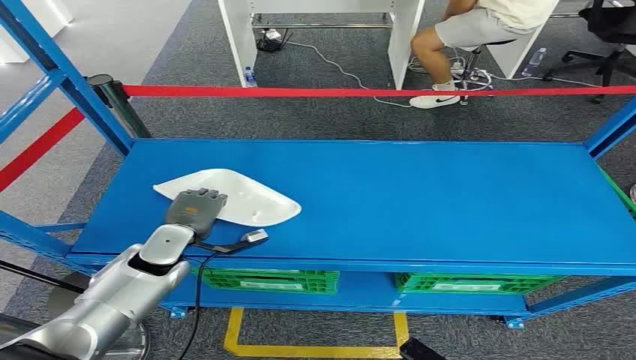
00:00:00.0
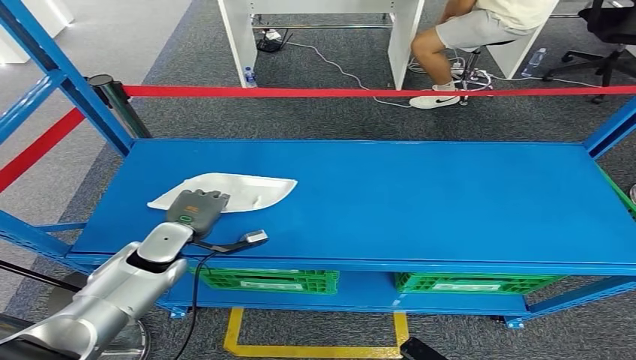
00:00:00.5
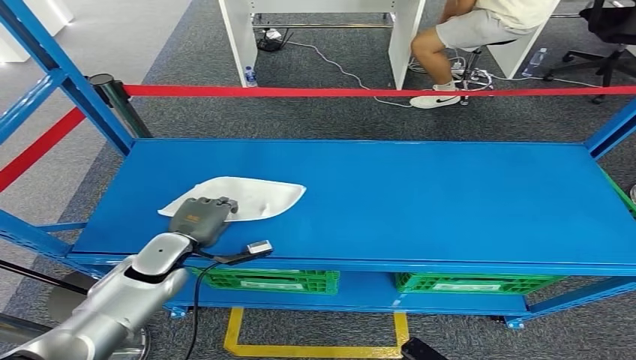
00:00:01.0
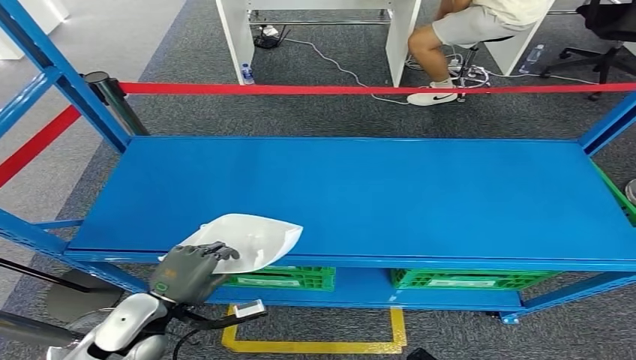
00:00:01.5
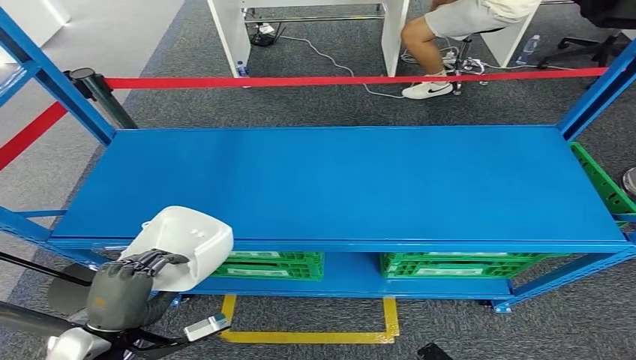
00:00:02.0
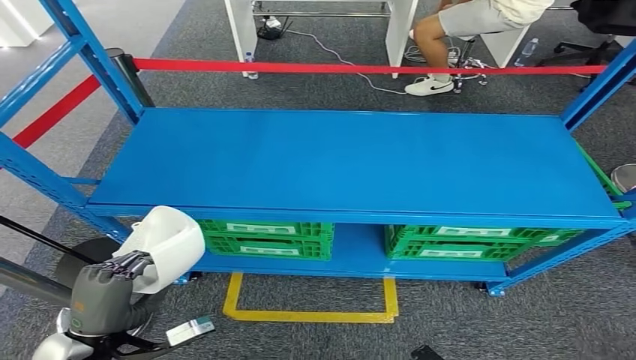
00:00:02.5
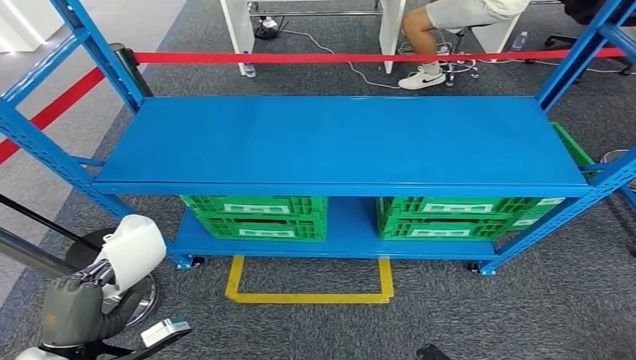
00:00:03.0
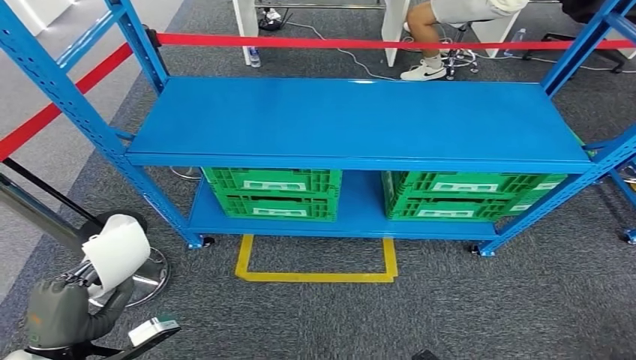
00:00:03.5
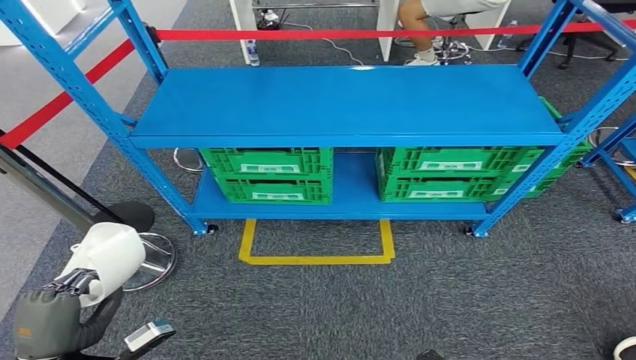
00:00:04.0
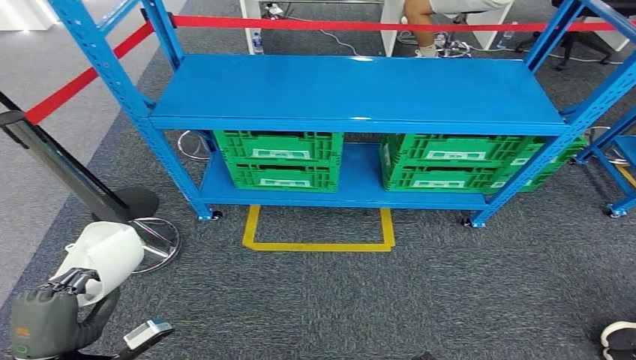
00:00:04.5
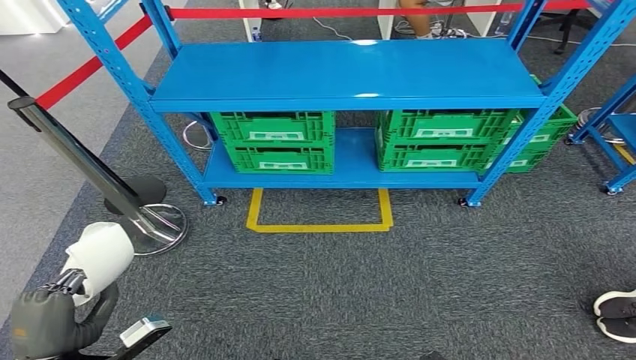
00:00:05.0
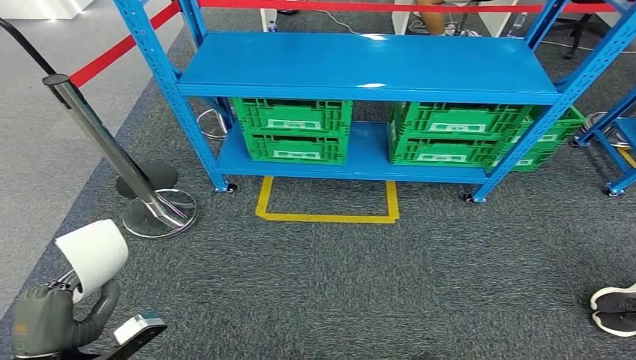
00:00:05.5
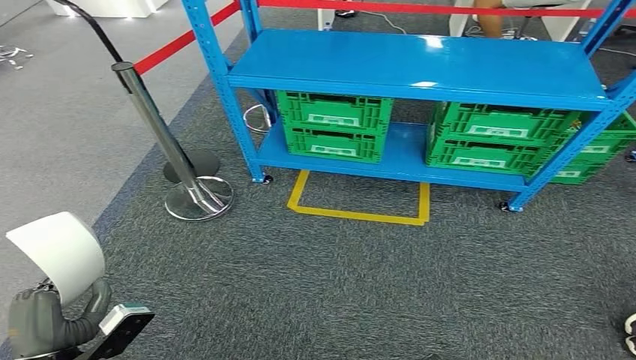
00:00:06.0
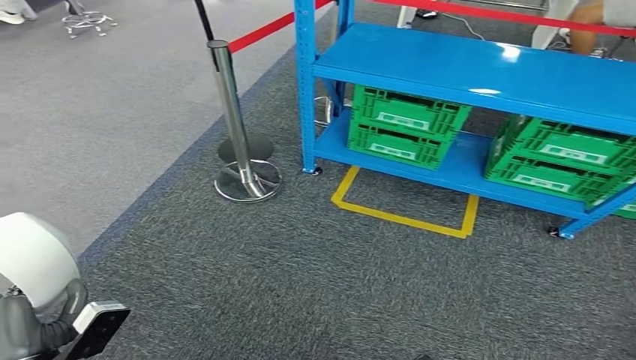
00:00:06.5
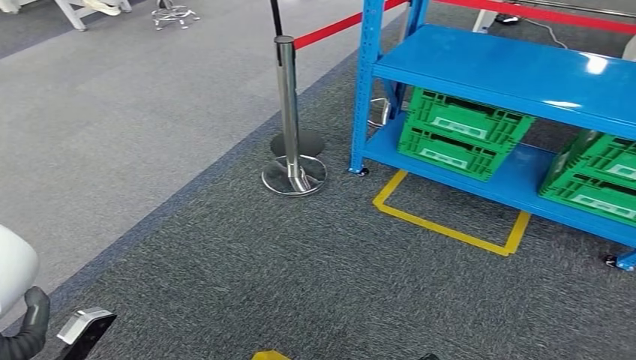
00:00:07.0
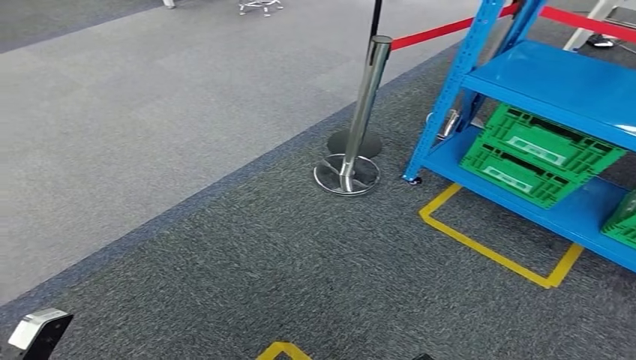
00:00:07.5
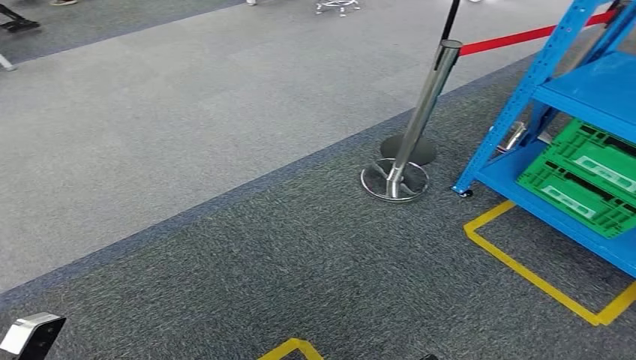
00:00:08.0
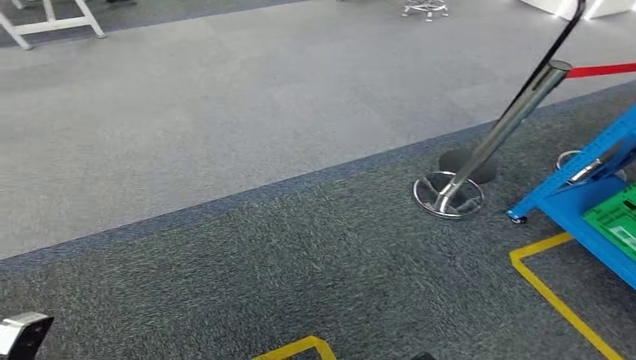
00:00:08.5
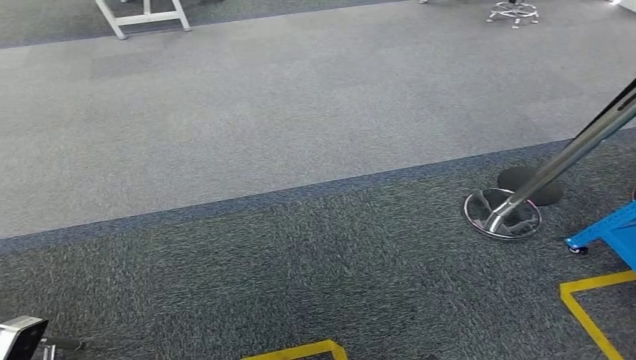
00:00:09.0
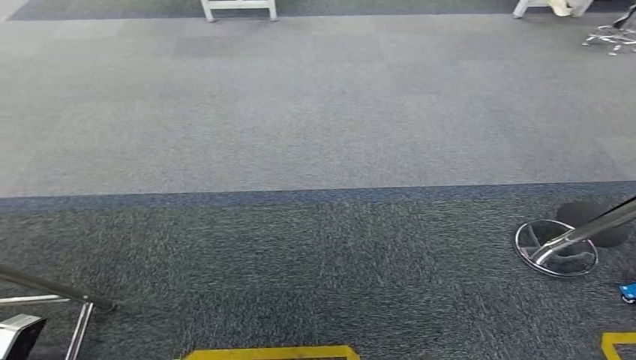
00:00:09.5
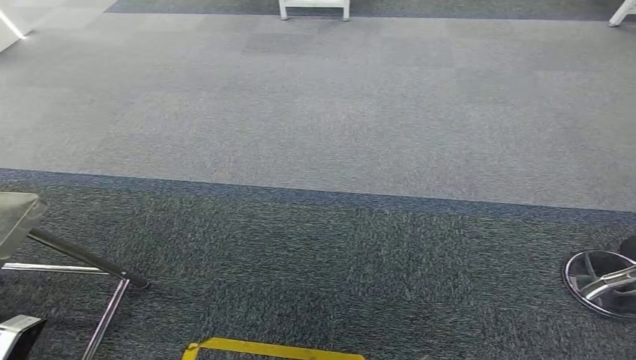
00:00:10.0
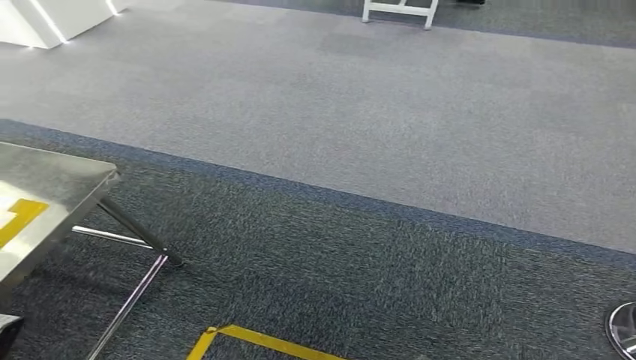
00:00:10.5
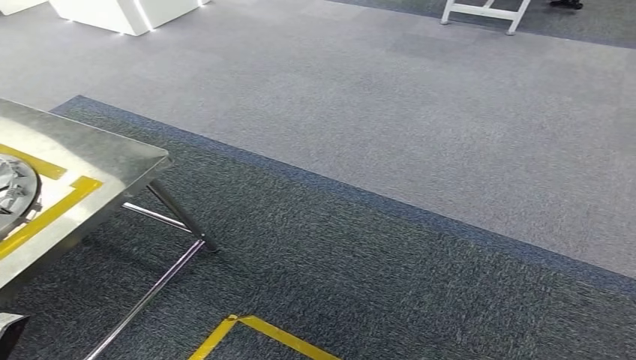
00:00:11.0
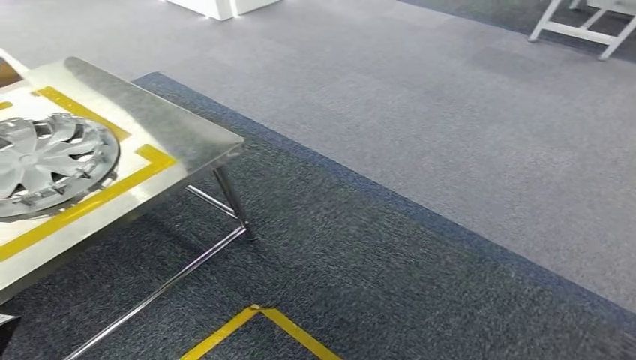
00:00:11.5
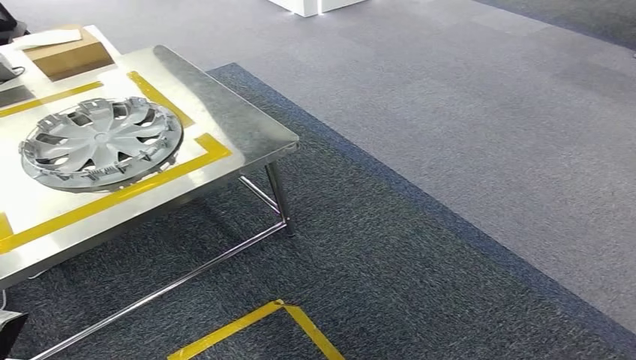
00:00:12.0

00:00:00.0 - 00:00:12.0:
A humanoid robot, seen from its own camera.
Step, 00:00:00.0 - 00:00:02.5: Pick up the small component from the shelf.

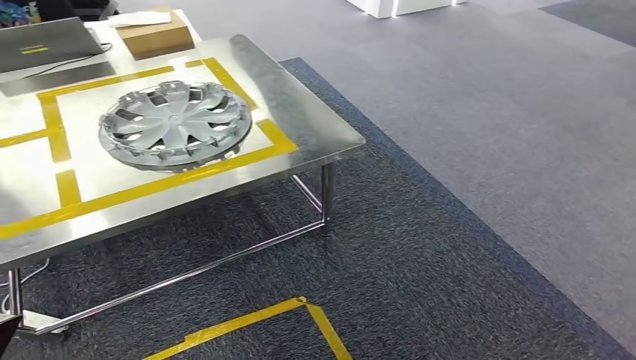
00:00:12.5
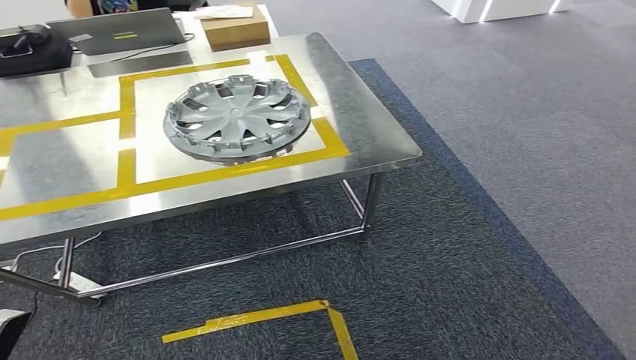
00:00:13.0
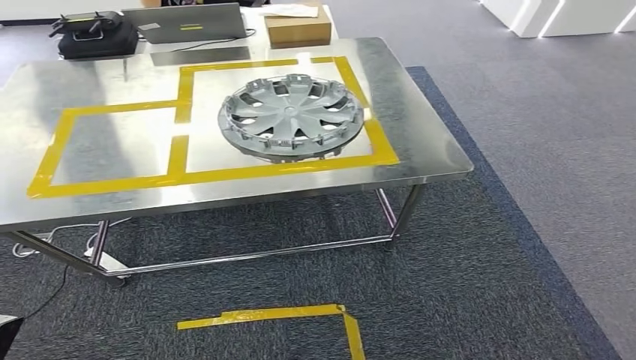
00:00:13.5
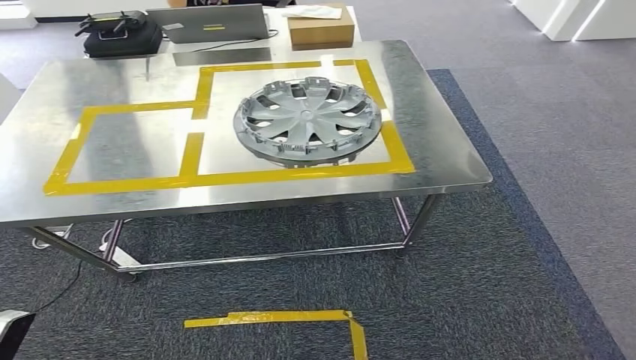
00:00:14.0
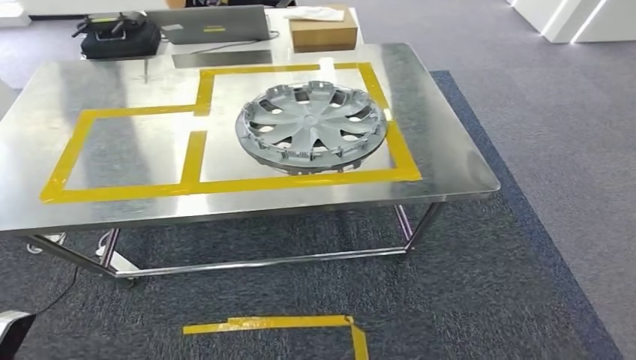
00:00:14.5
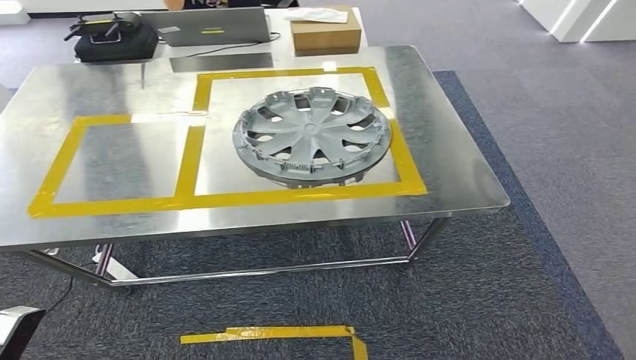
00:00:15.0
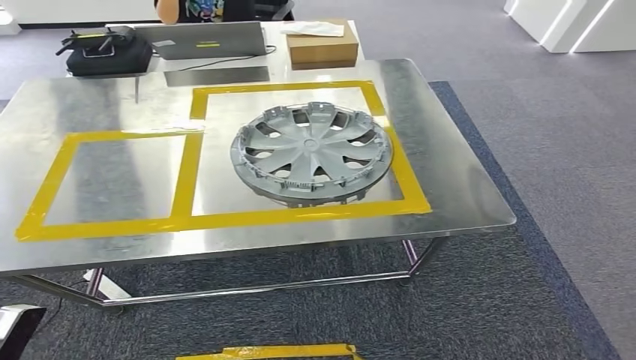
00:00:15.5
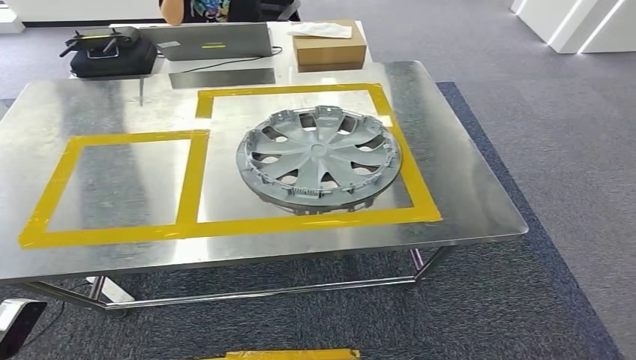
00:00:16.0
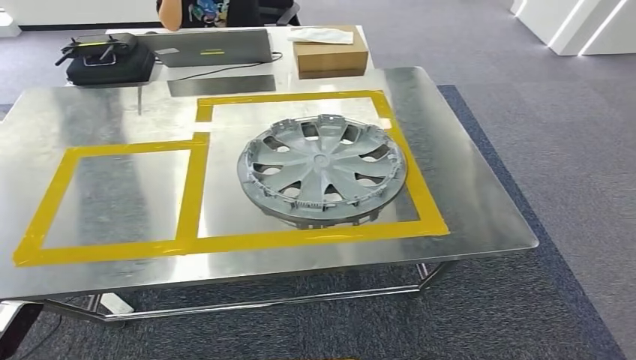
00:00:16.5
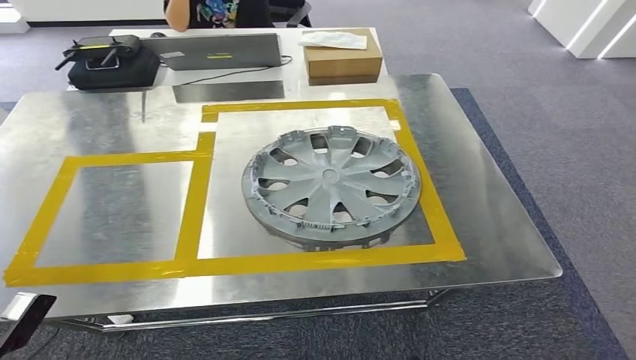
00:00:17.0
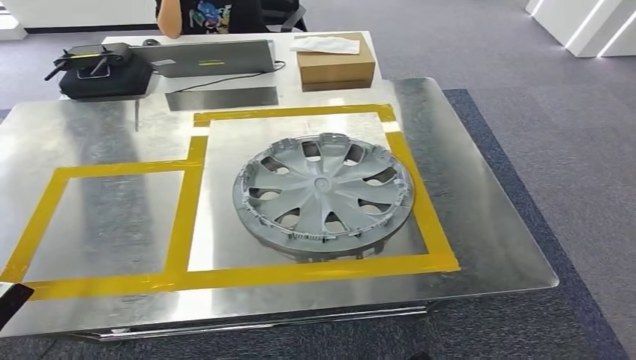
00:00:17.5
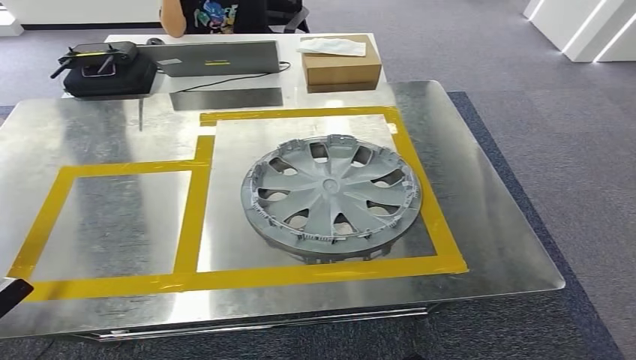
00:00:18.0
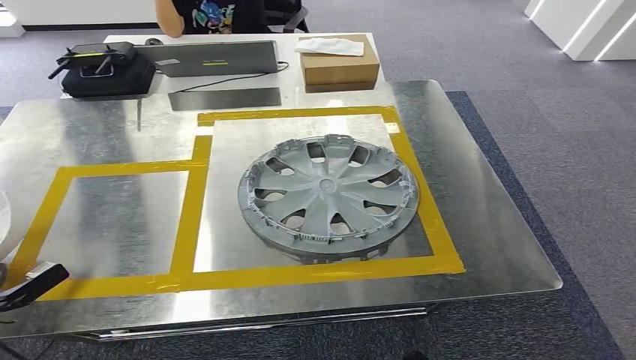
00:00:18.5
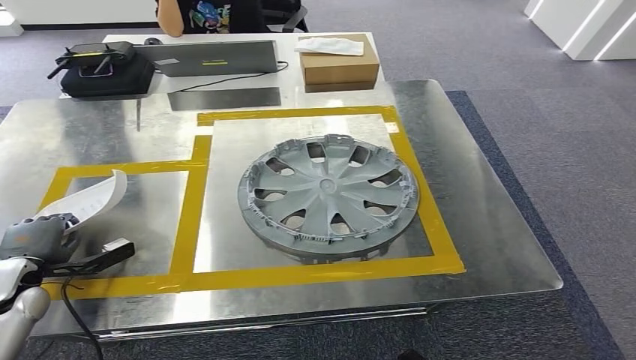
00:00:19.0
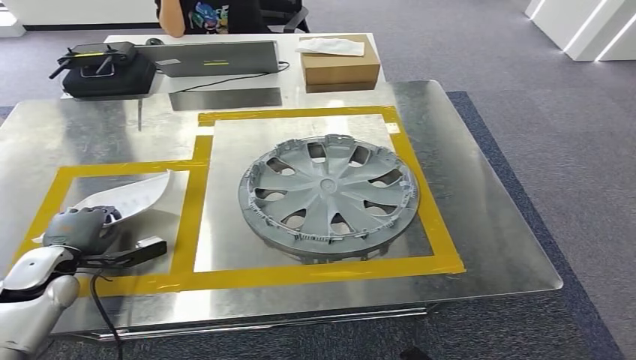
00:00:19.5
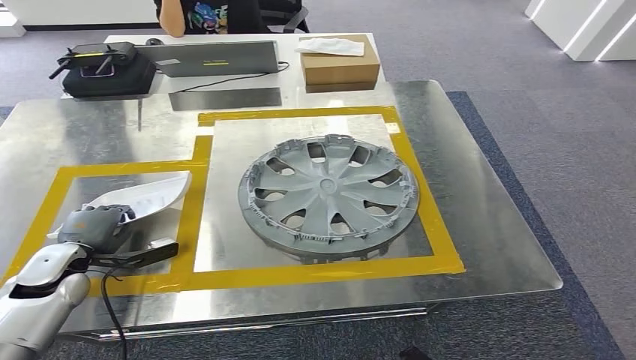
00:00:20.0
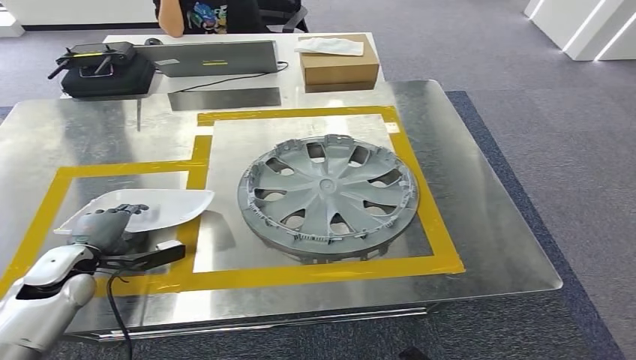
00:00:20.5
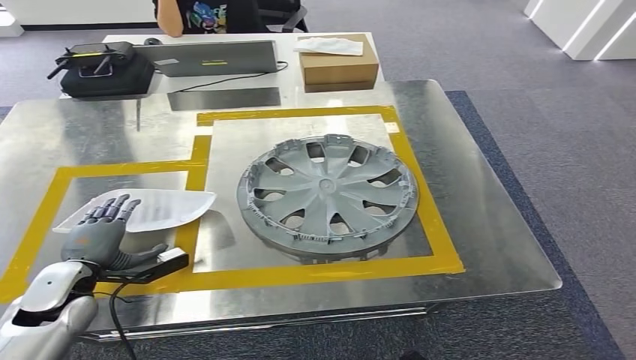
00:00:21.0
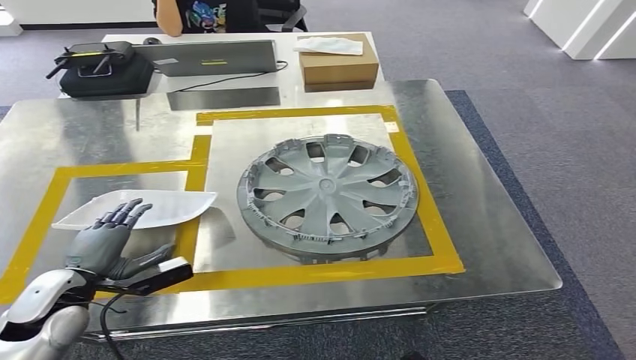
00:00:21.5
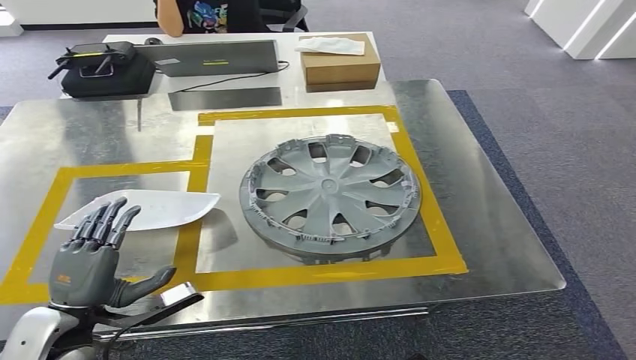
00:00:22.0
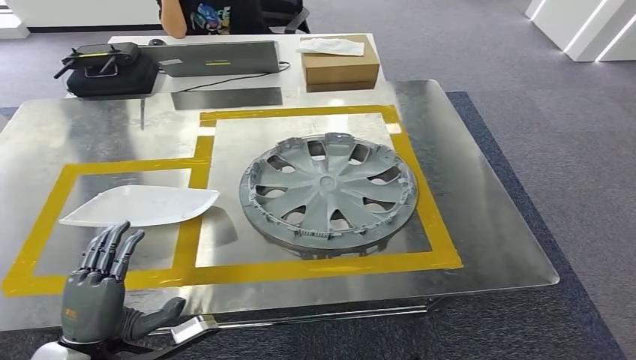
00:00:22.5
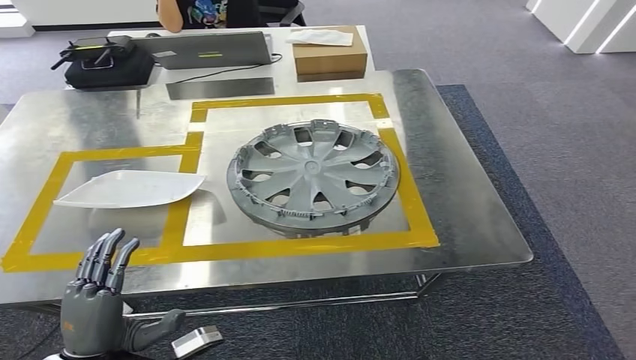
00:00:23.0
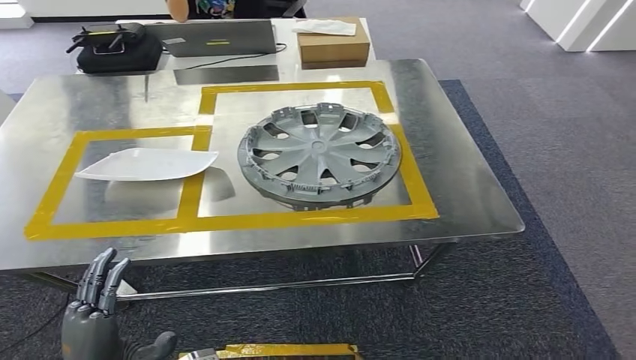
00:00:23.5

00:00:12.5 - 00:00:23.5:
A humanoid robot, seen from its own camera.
Step, 00:00:12.5 - 00:00:16.0: Bring the small component to the front of the workbench.
Step, 00:00:16.5 - 00:00:21.5: Insert the small component into the corresponding slot on the workbench.
00:00:18.0 - 00:00:20.0: The left hand is displaced forward and to the right by approximately 20 cm.
00:00:20.0 - 00:00:21.5: The left hand shifts about 5 cm backward.
